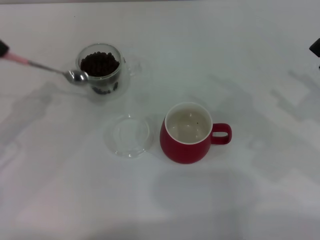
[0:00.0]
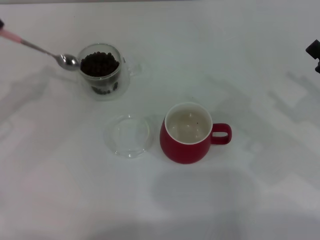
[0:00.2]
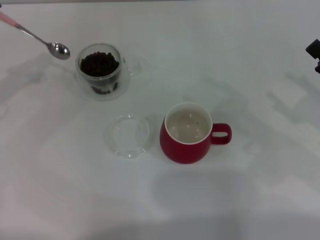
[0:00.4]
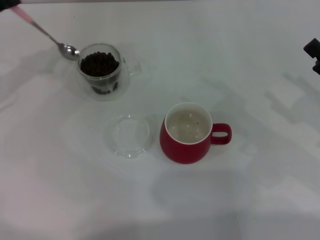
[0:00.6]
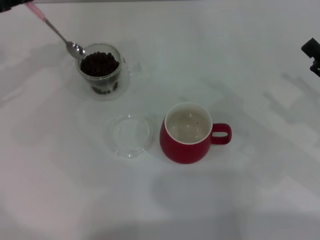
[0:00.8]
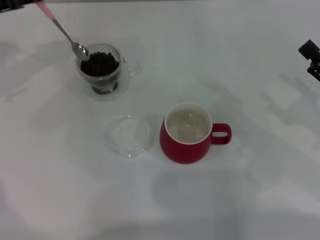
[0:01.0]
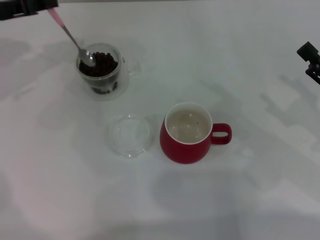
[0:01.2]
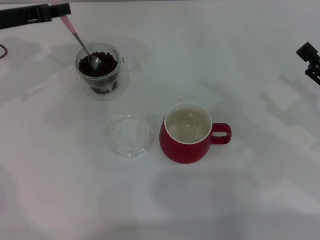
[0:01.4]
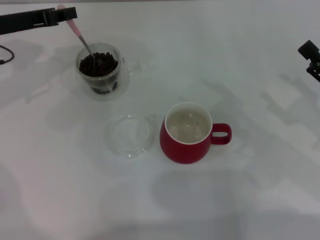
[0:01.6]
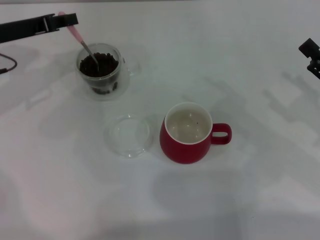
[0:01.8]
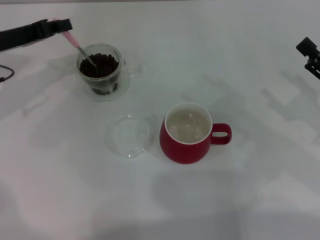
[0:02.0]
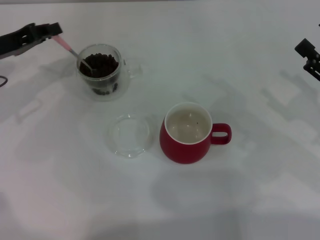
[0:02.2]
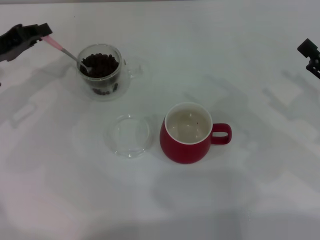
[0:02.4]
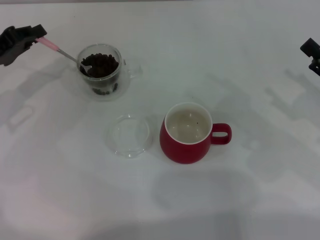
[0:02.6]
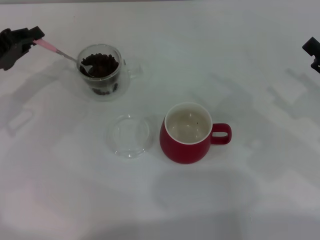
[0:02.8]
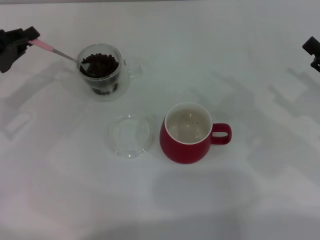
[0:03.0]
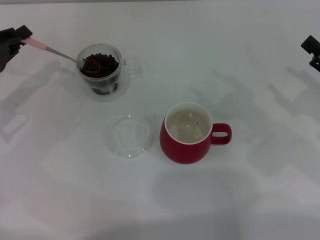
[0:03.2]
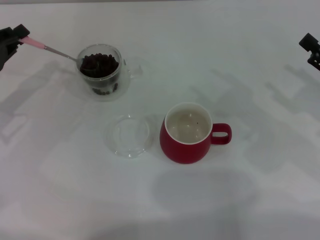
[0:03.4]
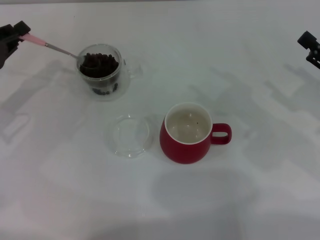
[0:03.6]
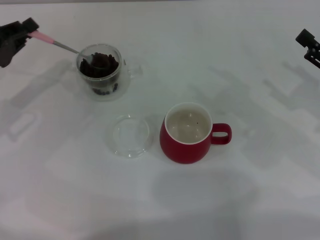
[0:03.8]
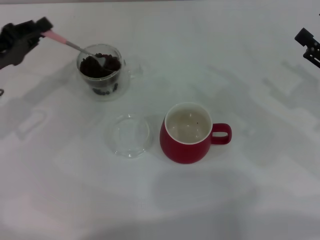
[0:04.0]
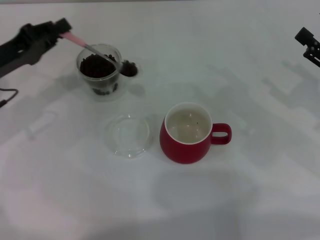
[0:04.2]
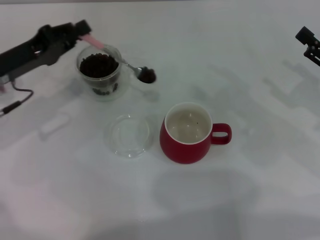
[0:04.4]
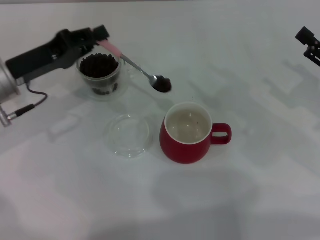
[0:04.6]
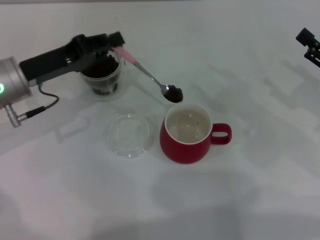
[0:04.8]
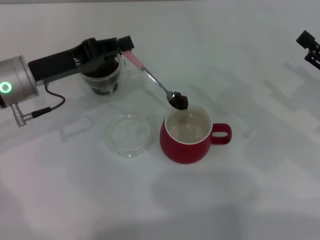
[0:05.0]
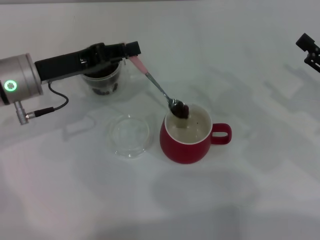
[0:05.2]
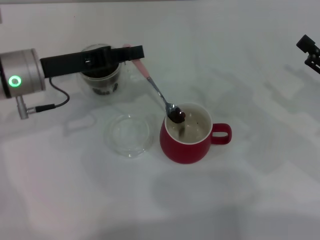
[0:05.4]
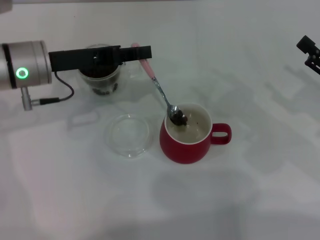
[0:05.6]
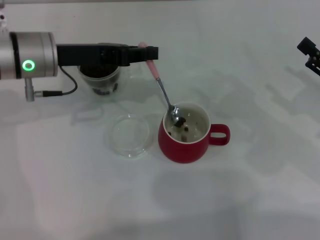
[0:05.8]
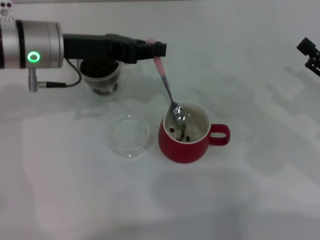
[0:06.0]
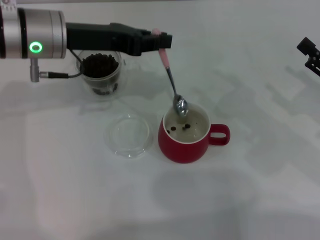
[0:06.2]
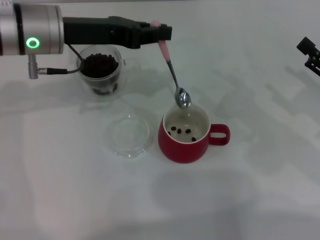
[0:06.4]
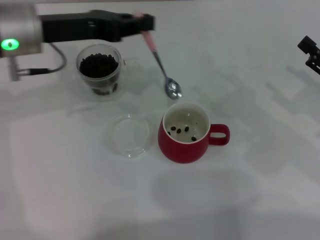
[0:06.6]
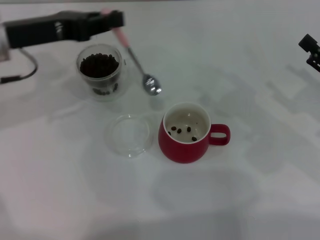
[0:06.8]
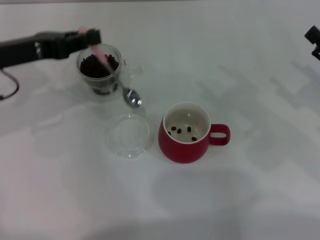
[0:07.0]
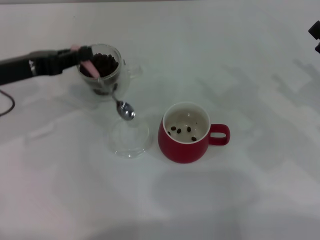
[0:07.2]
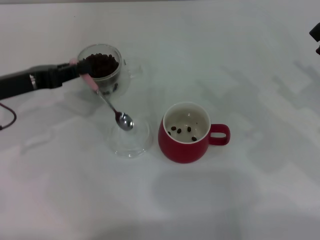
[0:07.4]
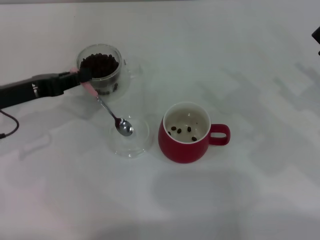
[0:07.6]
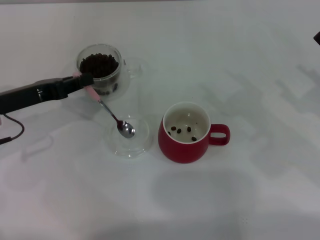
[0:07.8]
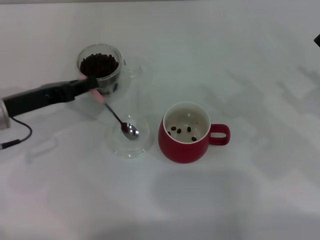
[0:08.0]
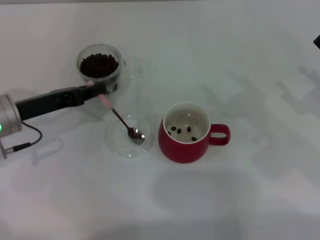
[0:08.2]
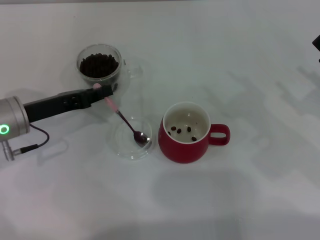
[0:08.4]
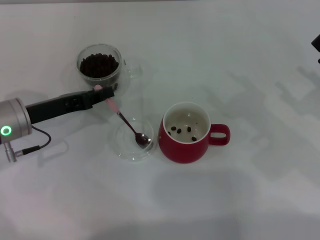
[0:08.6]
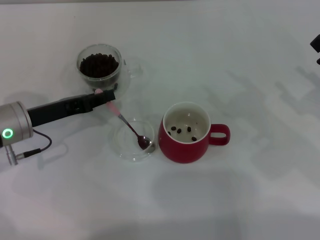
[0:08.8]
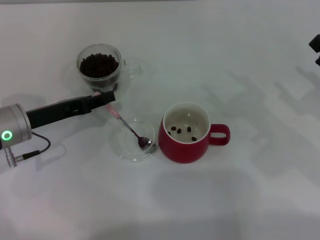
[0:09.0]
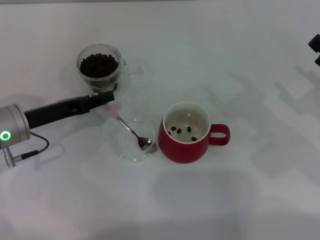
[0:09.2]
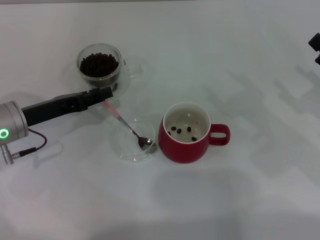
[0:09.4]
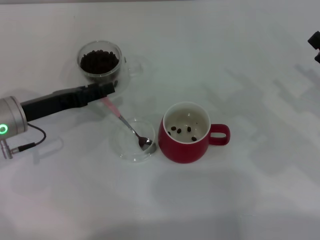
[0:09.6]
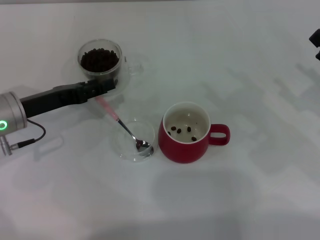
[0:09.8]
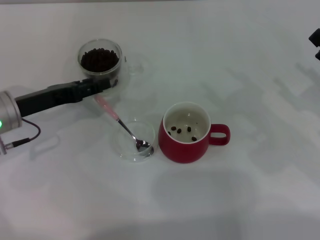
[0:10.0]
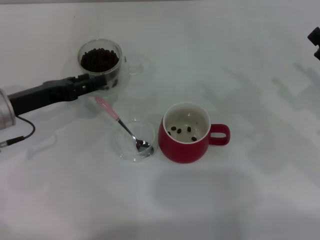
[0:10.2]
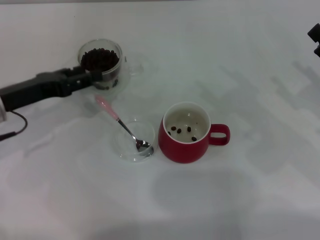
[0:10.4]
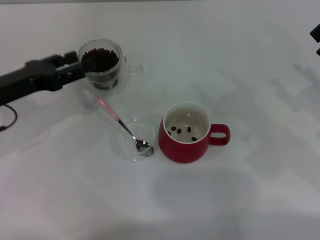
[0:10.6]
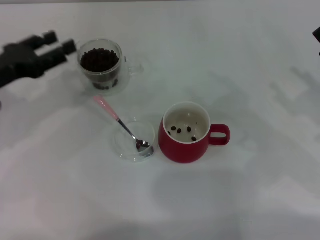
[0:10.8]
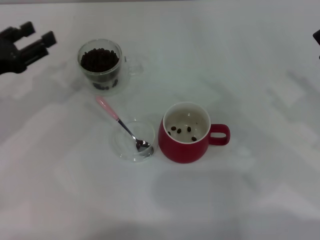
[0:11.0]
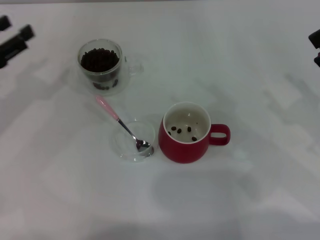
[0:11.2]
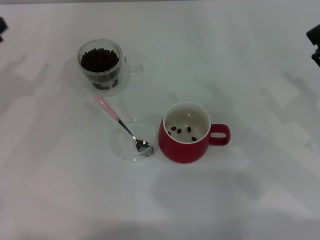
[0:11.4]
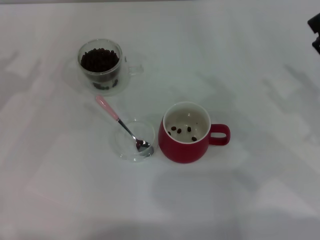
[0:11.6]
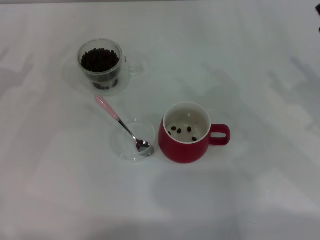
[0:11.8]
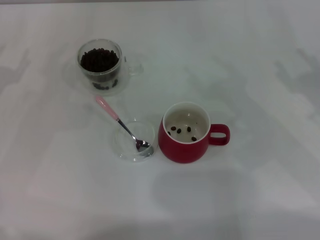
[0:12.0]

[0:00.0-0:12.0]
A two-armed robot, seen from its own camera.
Task of the whole recording: Use a pink spoon to take out the coffee beans from the glass and pour them into the red cup.
Step, 0:00.0 to 0:05.8: Scoop a spoonful of beans into the cup with the right gripper.
0:00.0 to 0:01.6: The left gripper travels forward and to the right by approximately 15 cm.
0:01.6 to 0:03.0: The left gripper moves backward and downward, about 10 cm.
0:03.0 to 0:04.4: The left gripper moves to the right, roughly 5 cm.
0:04.4 to 0:06.0: The left gripper is displaced to the right and upward by some 10 cm.
0:06.0 to 0:07.6: The left gripper moves to the left, downward and backward, about 15 cm.
0:07.6 to 0:09.0: The left gripper changes place by about 5 cm.
0:09.0 to 0:10.4: The left gripper opens.
0:10.4 to 0:12.0: The left gripper is displaced to the left by about 10 cm.

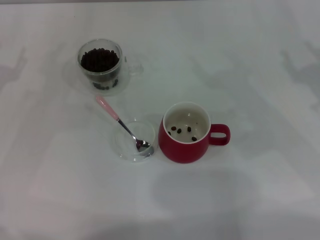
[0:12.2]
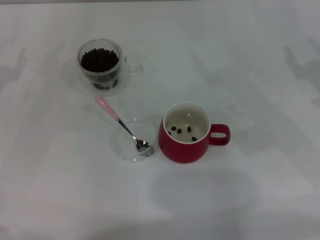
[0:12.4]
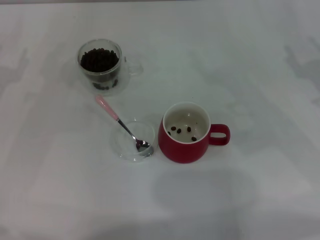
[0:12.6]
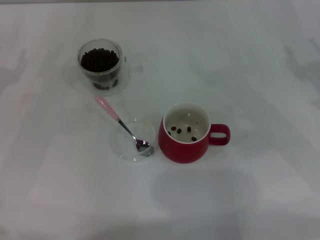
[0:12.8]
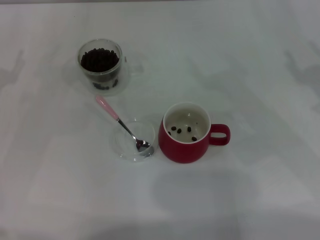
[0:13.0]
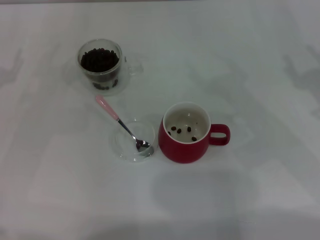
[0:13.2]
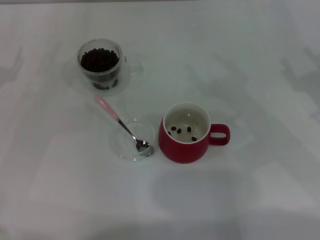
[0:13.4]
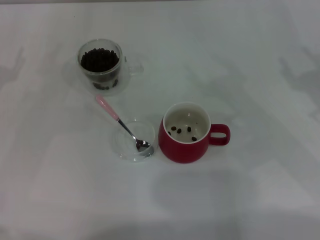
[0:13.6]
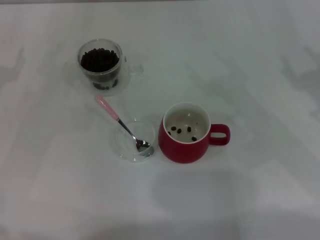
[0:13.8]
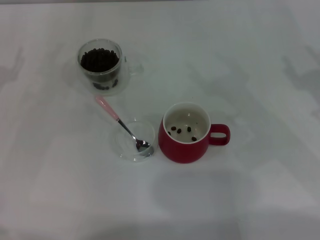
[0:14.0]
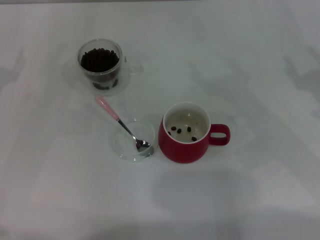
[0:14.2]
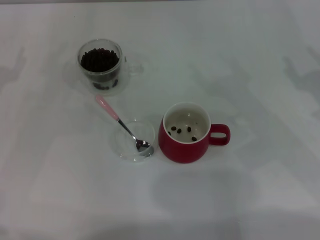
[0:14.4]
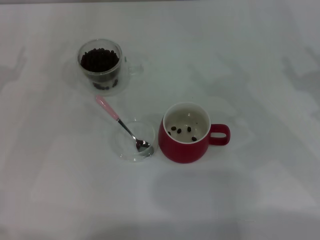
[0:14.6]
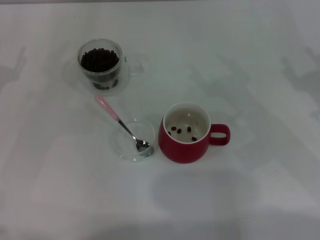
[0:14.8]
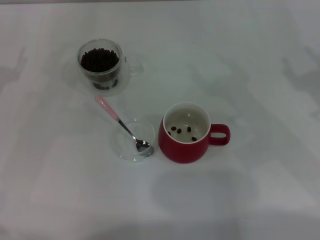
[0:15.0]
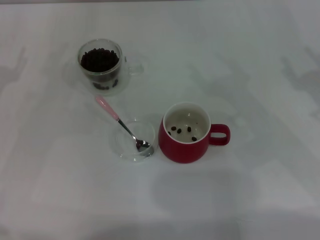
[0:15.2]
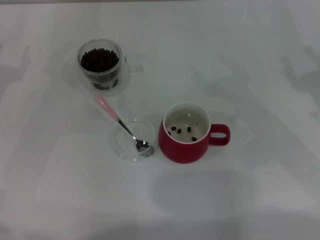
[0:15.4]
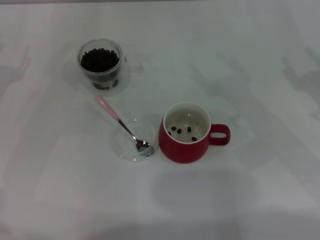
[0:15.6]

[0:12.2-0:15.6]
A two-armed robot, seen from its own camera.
Task of the whole recording: Use a pink spoon to take out the coffee beans from the glass and pour them into the red cup.
0:13.8 to 0:15.6: Neither gripper changes place.
